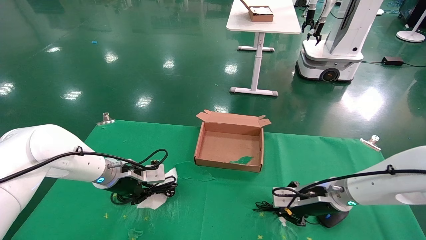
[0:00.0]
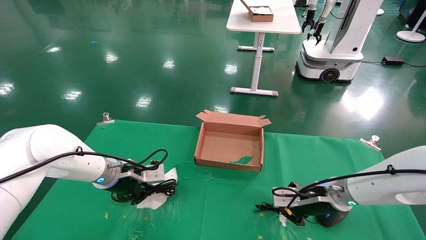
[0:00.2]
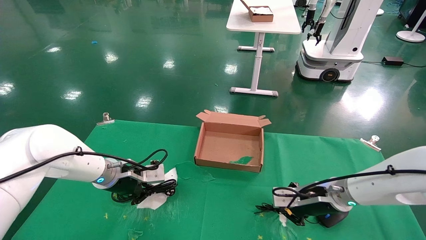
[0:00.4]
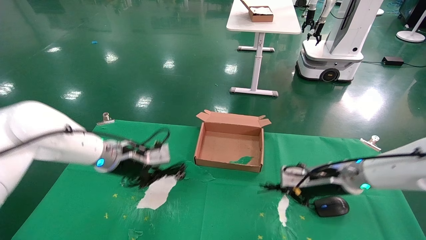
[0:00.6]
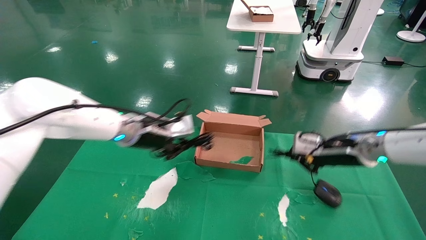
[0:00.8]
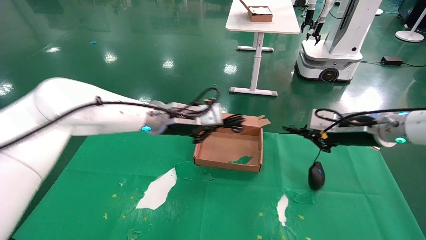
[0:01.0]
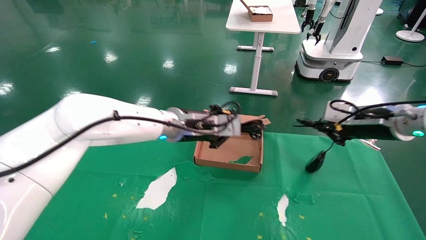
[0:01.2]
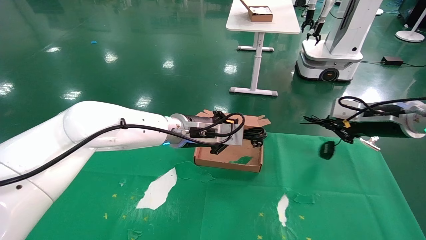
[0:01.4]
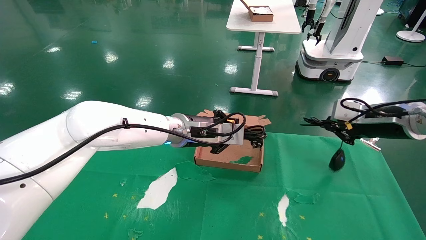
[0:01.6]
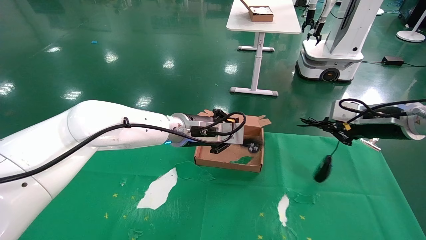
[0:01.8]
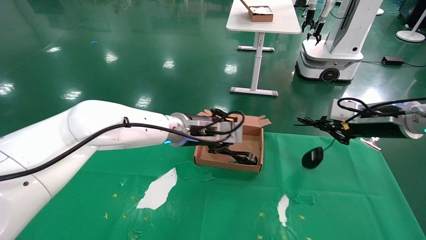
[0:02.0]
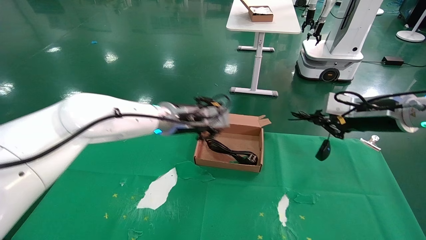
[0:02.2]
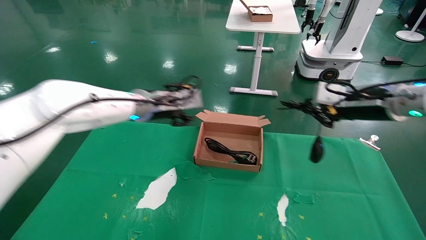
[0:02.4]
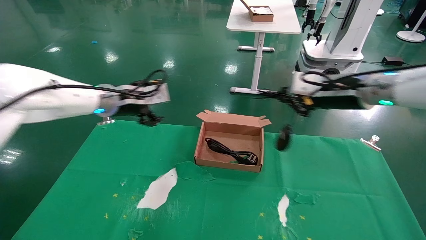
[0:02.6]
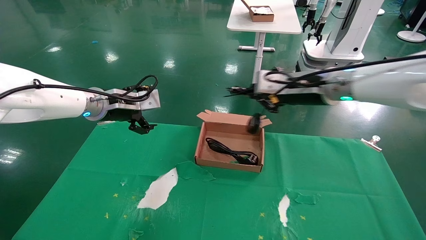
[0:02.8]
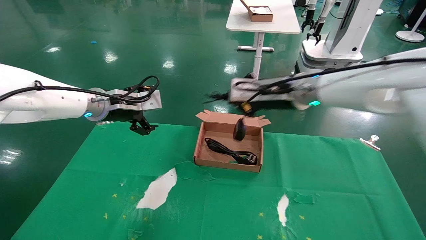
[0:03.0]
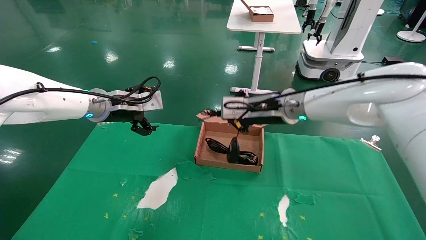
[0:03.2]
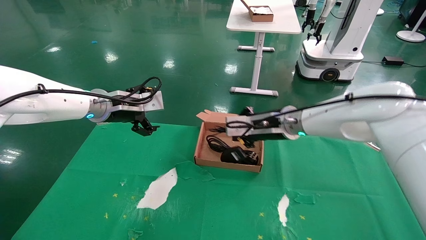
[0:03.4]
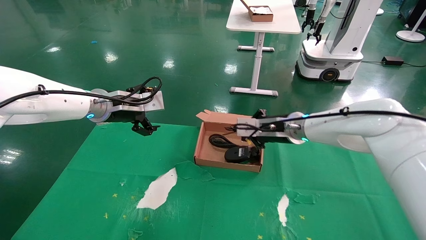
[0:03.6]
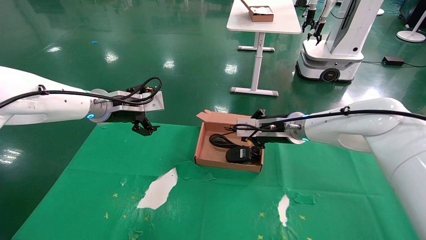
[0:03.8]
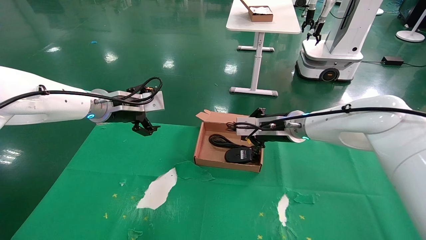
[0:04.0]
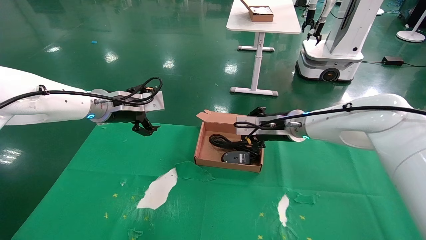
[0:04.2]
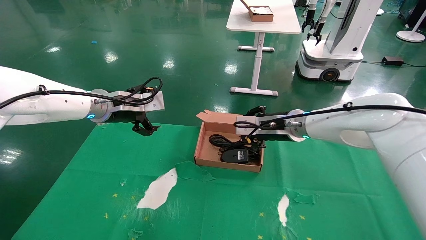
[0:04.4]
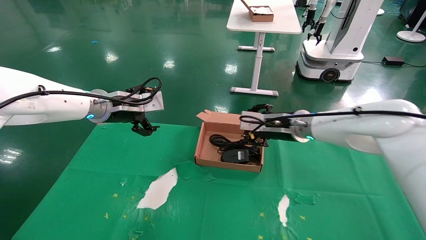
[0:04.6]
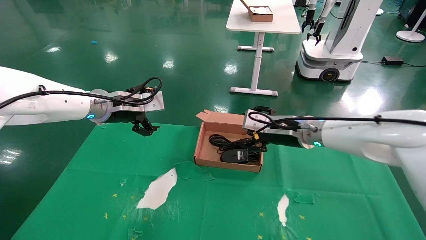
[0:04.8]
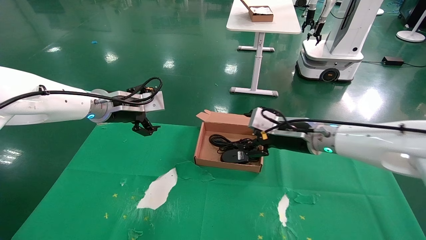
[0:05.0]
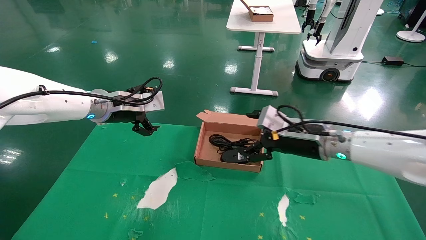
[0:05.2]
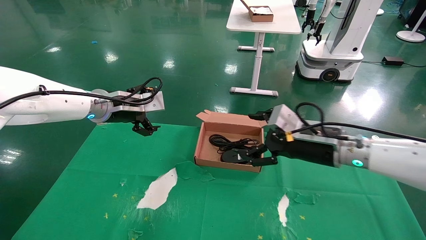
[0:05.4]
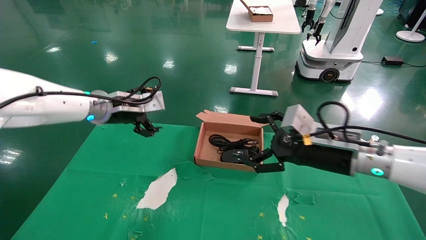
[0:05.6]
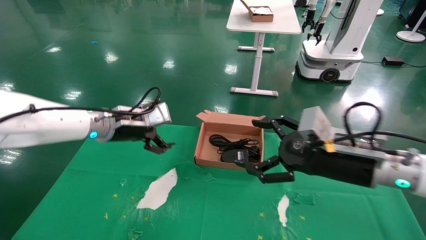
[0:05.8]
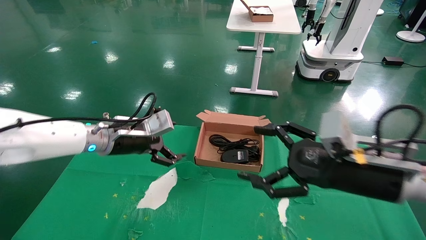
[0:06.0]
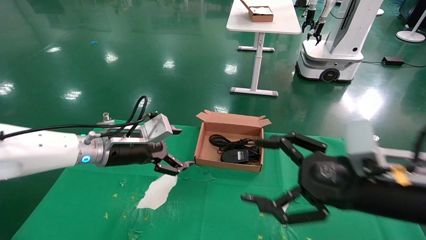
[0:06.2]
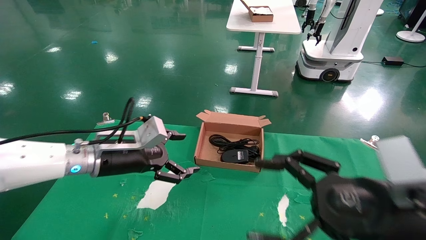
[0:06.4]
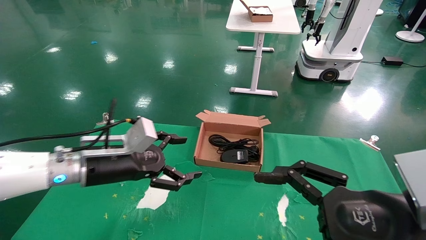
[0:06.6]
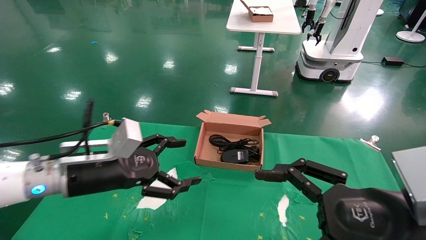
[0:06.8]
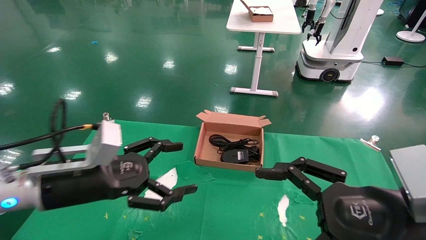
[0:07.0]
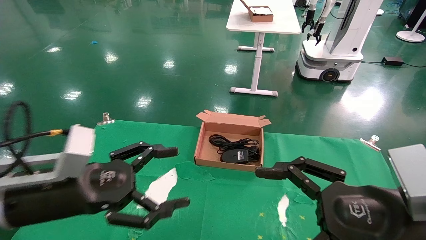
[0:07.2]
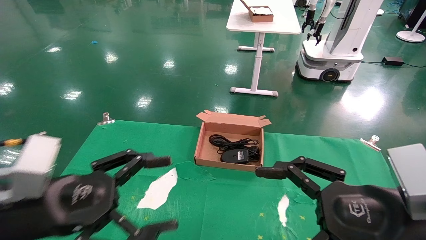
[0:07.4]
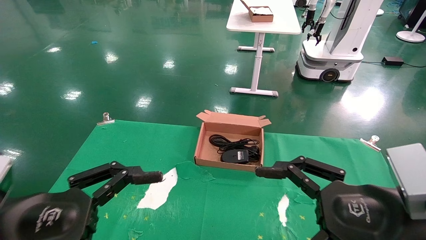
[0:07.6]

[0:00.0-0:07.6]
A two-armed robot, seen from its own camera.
Step, 0:00.6 to 0:05.4: Place the mouse and power cord into the box.
0:00.0 to 0:01.6: The right gripper heads upward and to the right, covering about 20 cm. The left gripper goes about 20 cm to the right and upward.
0:01.6 to 0:03.0: Both grippers move to the left, about 20 cm. The left gripper opens.
0:03.0 to 0:04.6: The right gripper is displaced downward by about 10 cm, and opens.
0:04.6 to 0:06.0: The right gripper travels backward by approximately 20 cm, and opens up; the left gripper heads downward, covering some 5 cm.
0:06.0 to 0:07.6: The right gripper shifts approximately 10 cm backward; the left gripper heads backward, covering about 25 cm.
